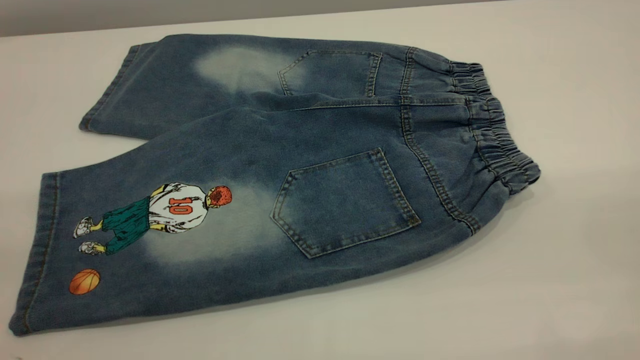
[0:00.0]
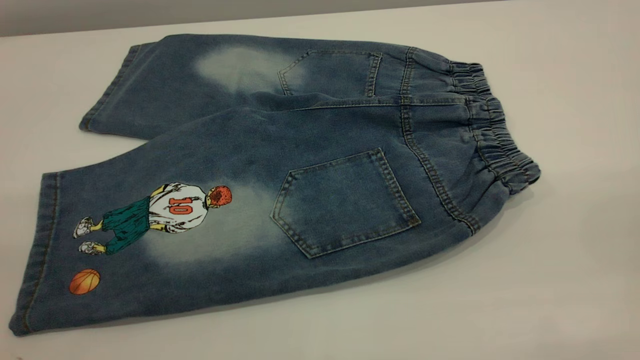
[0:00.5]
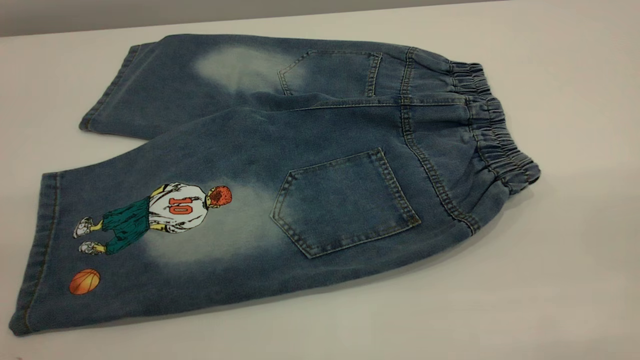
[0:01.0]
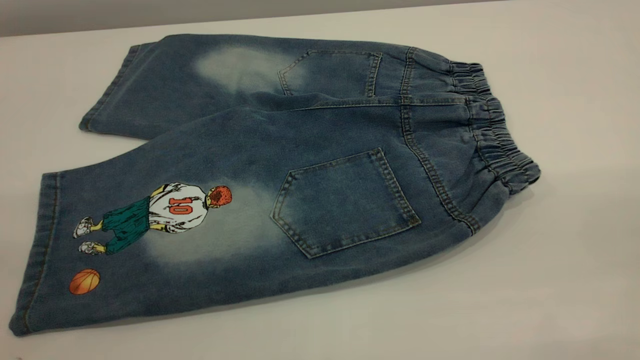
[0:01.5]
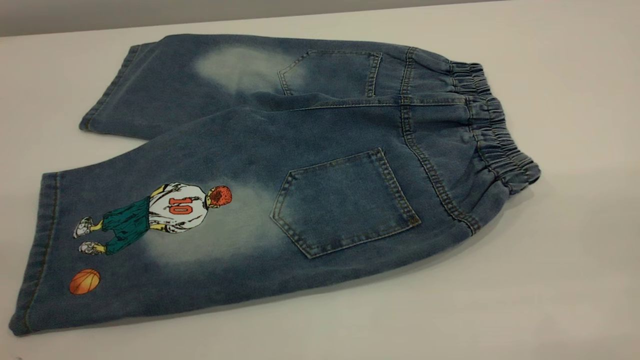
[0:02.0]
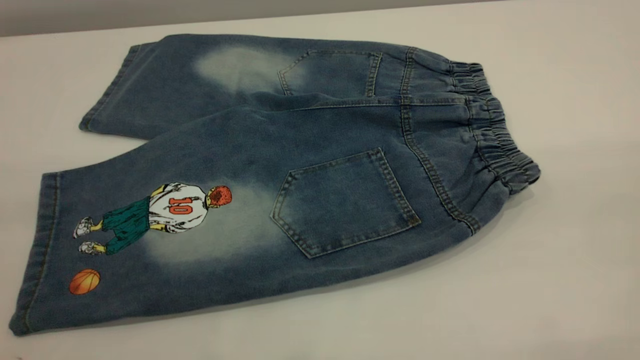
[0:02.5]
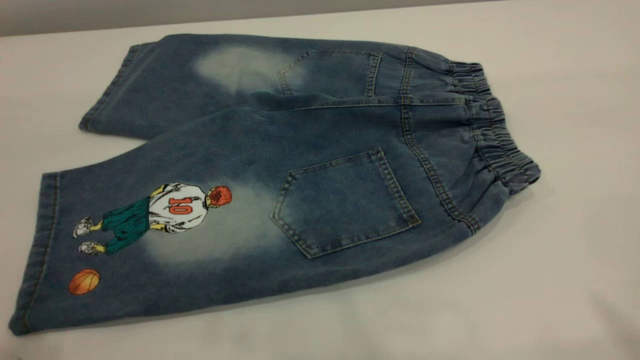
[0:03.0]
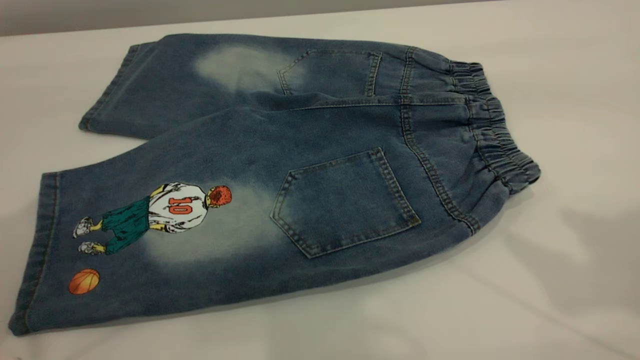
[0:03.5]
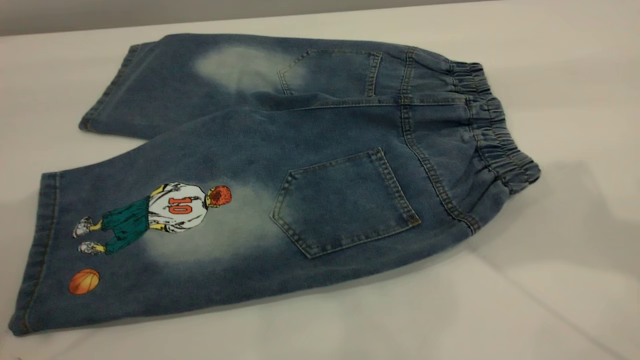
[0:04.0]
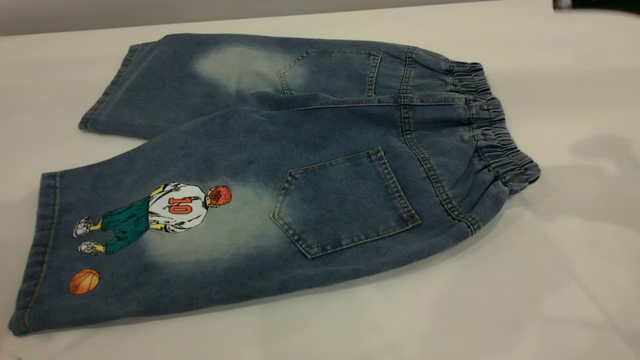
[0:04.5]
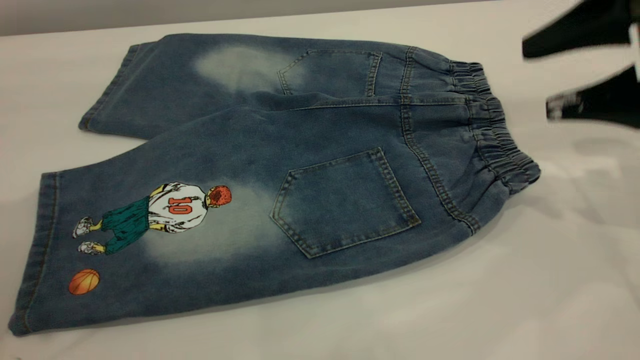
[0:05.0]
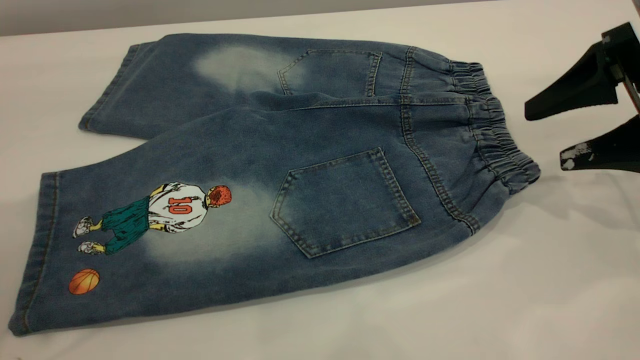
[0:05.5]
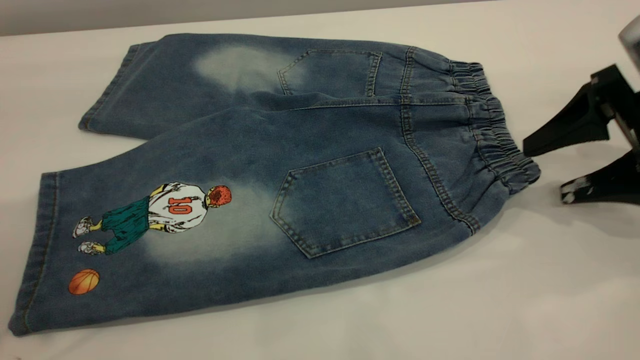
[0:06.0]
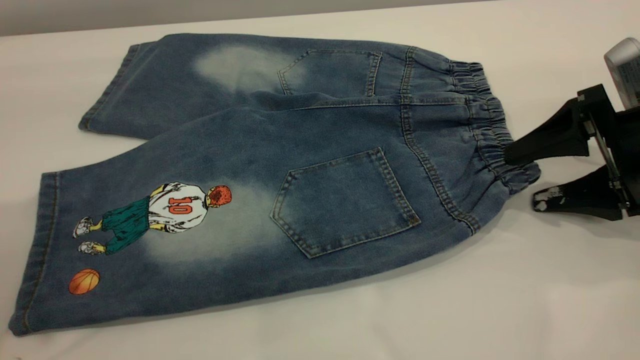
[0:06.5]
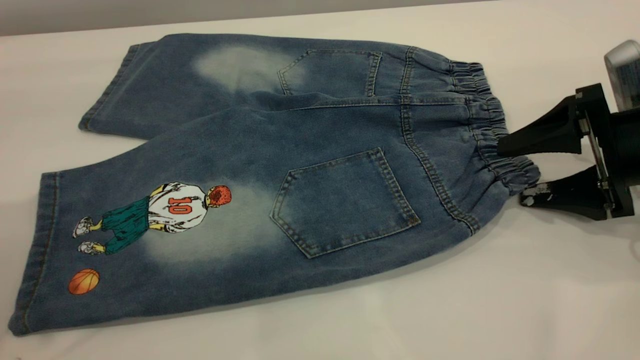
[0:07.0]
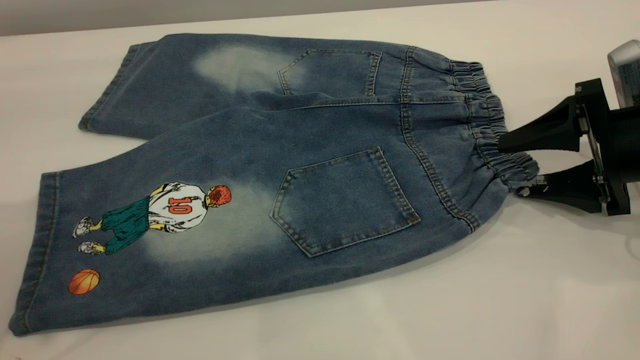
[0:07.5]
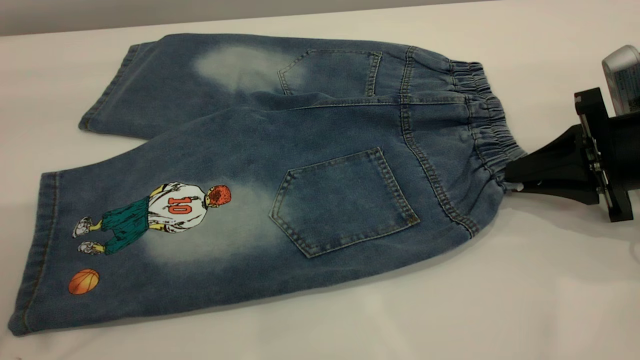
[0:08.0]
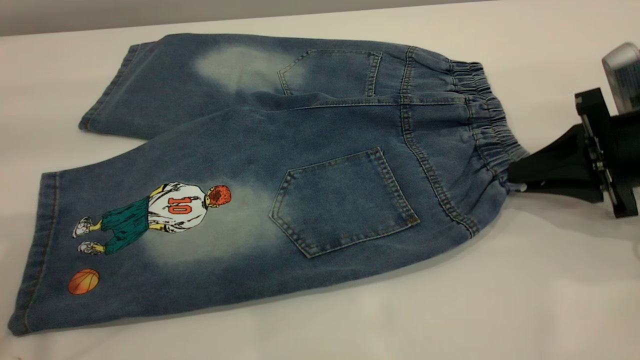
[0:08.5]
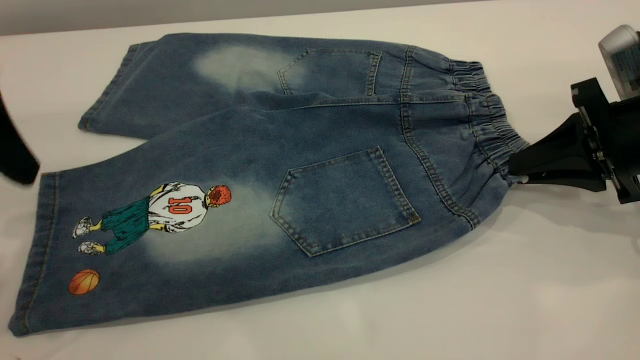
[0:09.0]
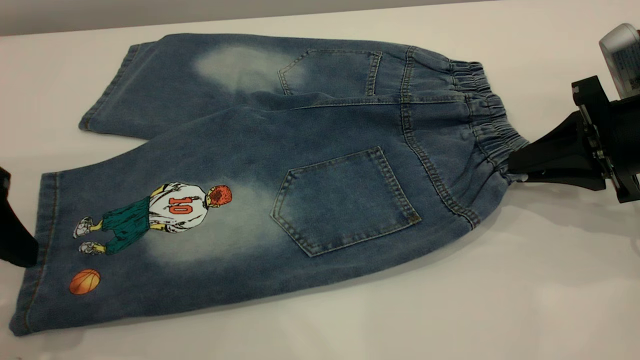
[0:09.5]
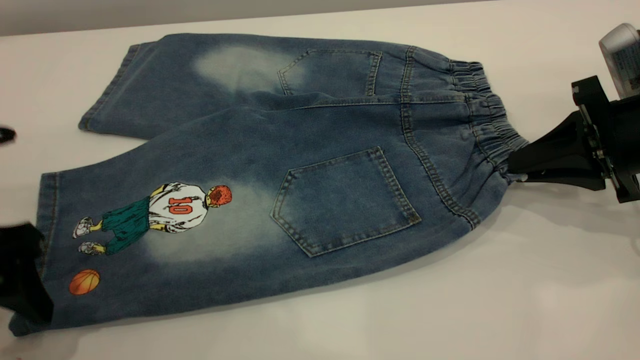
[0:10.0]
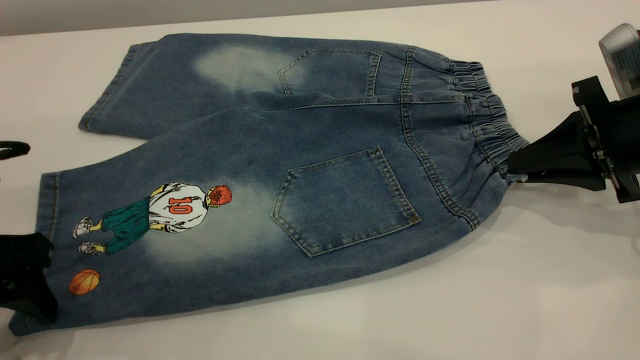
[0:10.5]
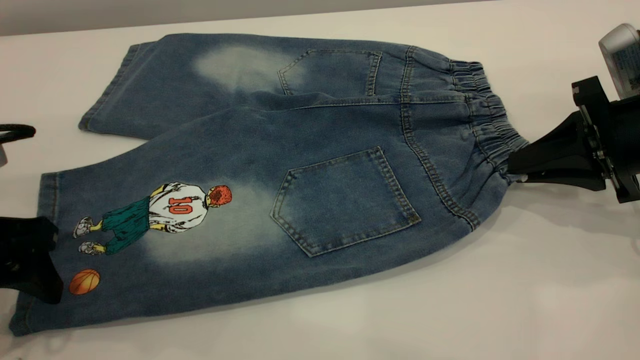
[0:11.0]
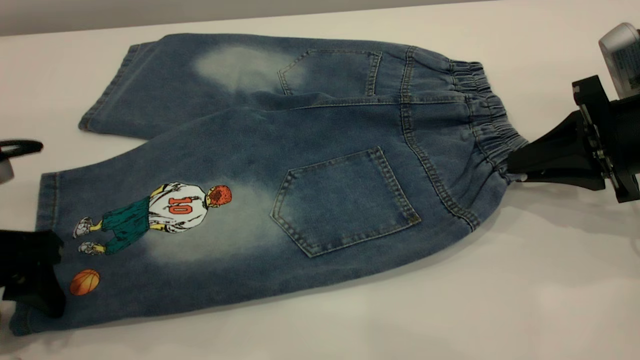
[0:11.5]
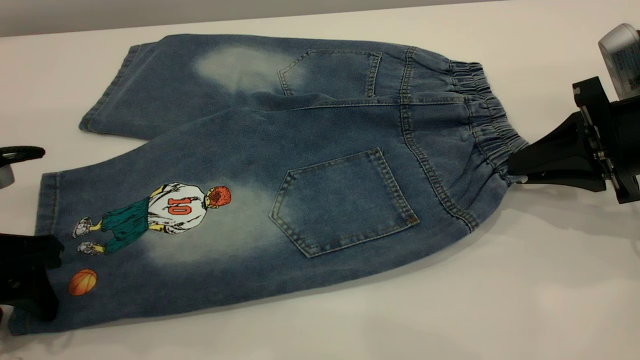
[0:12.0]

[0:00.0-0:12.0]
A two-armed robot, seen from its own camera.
0:00.0 to 0:02.0: Both grippers stay put.
0:04.0 to 0:06.0: The right gripper shifts about 20 cm downward.
0:06.0 to 0:08.0: The right gripper closes its fingers.
0:08.0 to 0:10.0: The left gripper shifts roughly 20 cm downward.
0:10.0 to 0:12.0: The grippers move only a little.

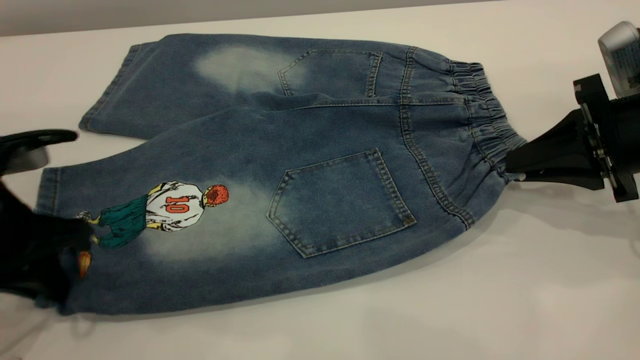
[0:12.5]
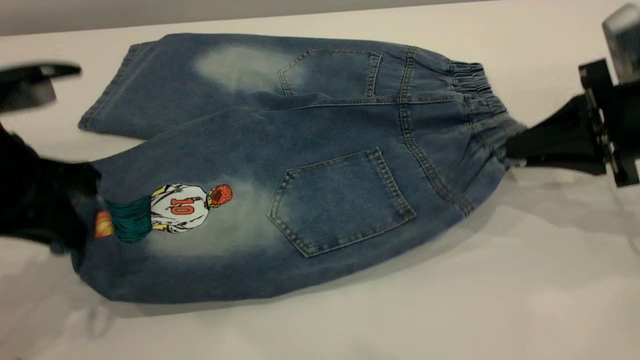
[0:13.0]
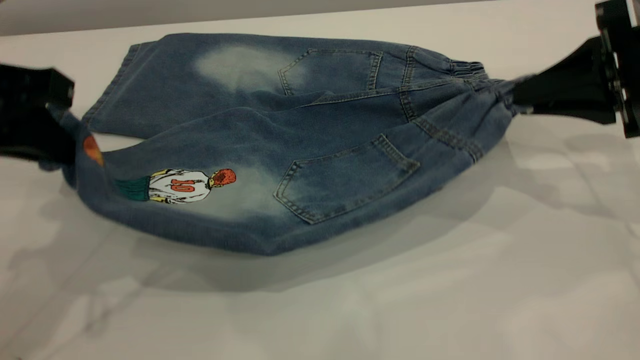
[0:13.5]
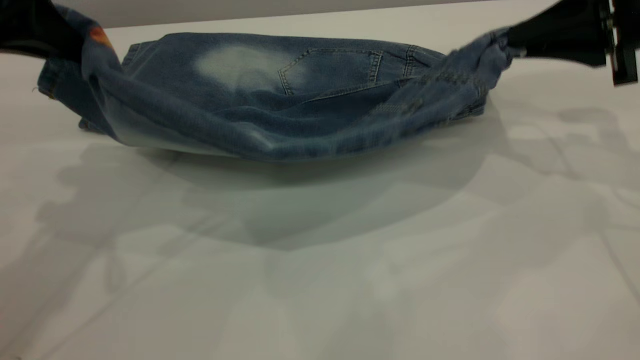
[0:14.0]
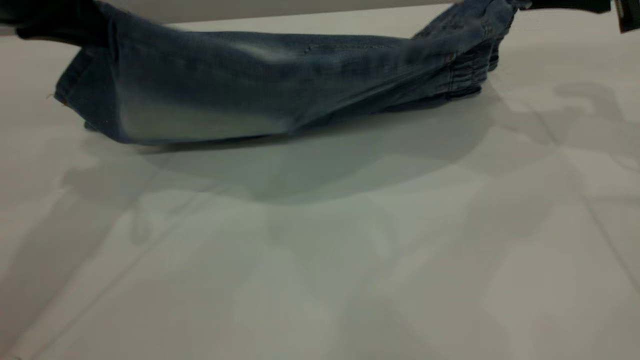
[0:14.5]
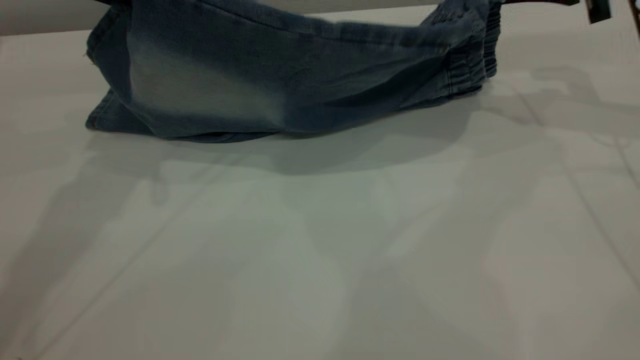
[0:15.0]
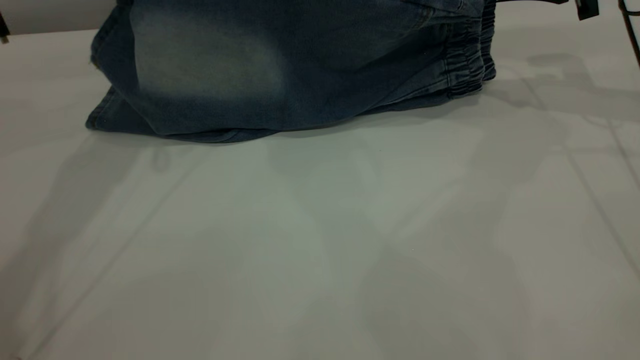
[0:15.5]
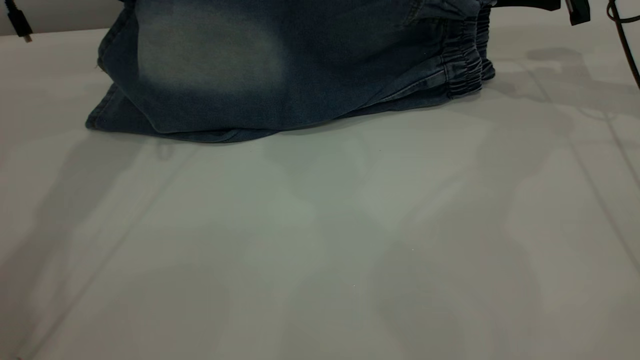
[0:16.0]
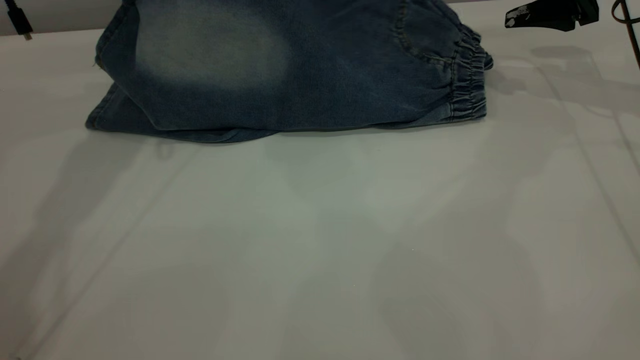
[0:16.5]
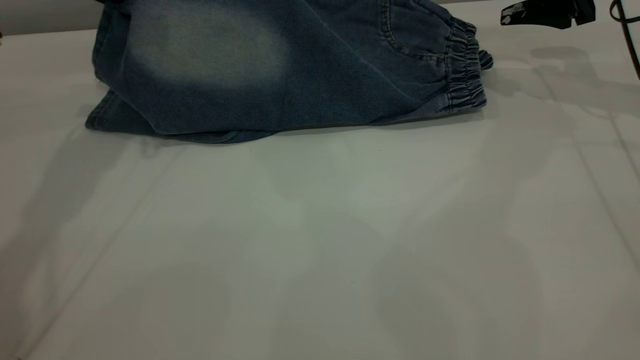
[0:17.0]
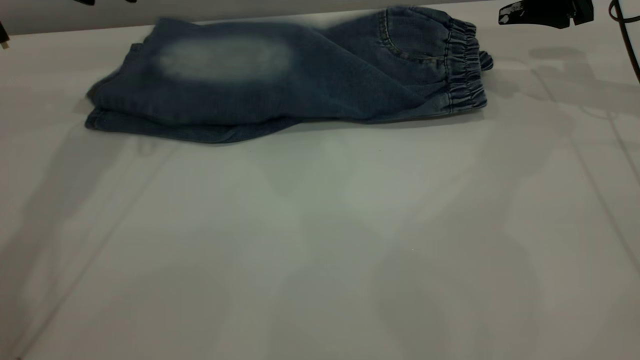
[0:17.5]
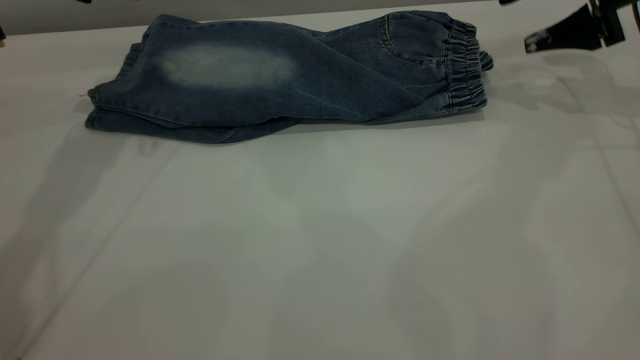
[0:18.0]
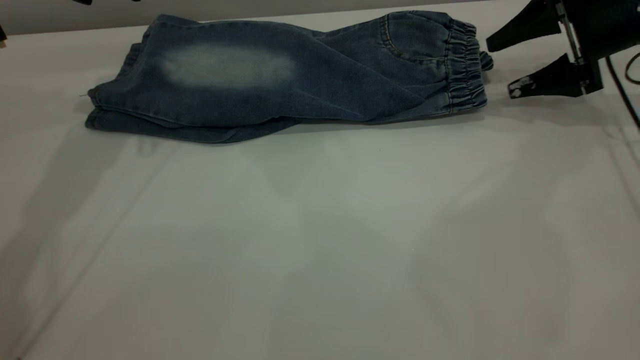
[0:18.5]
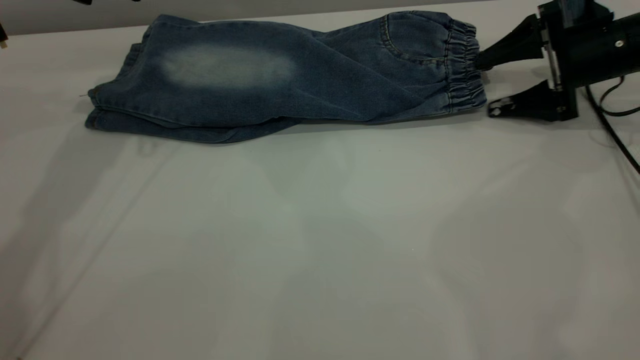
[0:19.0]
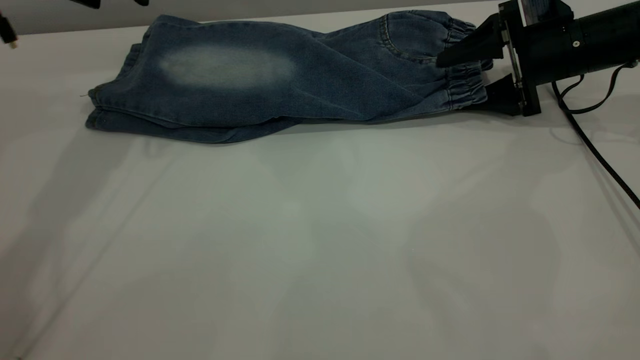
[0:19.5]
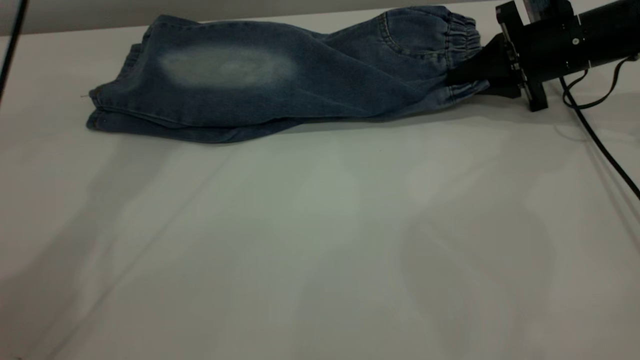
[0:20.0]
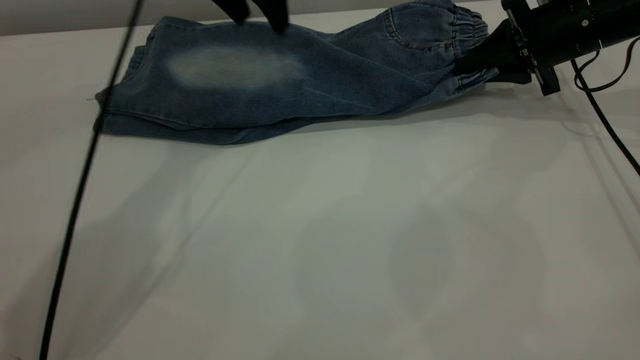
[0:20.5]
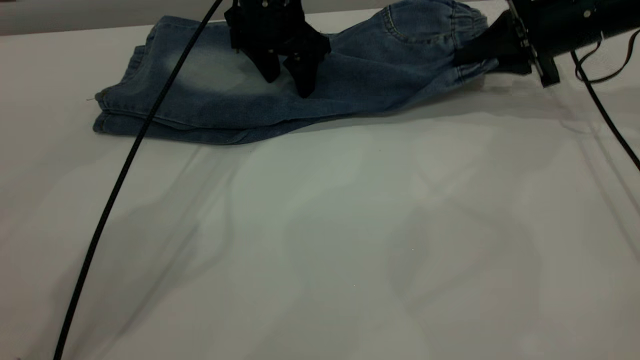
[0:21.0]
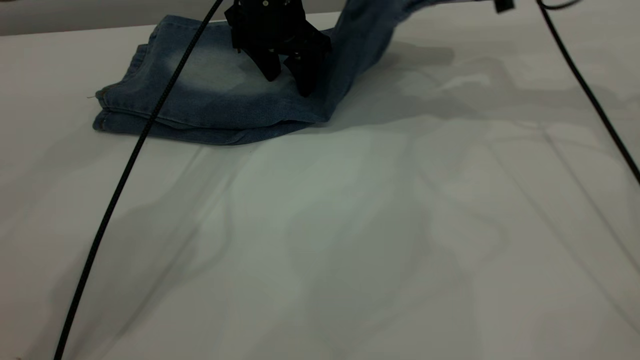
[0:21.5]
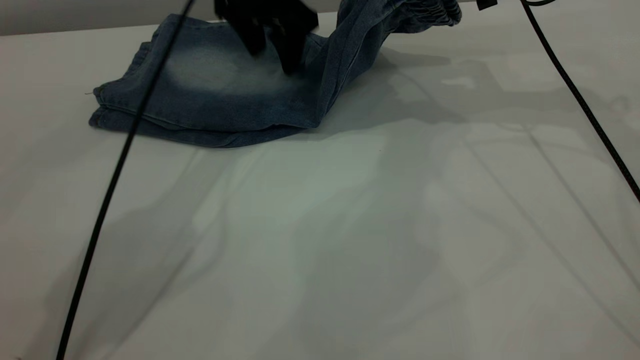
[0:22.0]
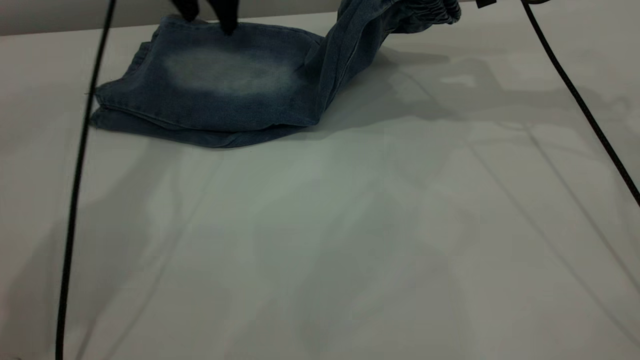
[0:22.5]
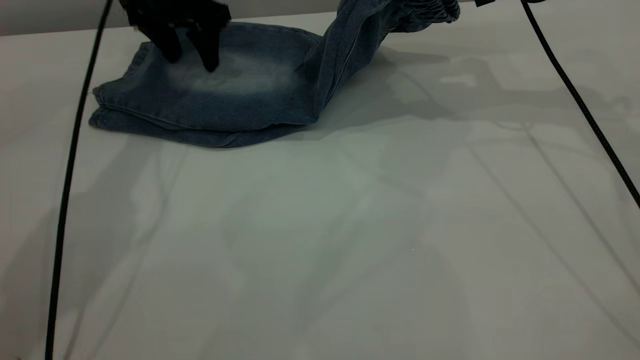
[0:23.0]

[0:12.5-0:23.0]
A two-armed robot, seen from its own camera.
Step, 0:12.5 to 0:17.5: Fold the bottom of the pants upward.
0:12.5 to 0:14.5: The two grippers go approximately 15 cm upward and forward.
0:14.5 to 0:16.5: Both grippers move forward, roughly 10 cm. The right gripper opens.
0:16.5 to 0:19.0: The left gripper opens up, while the right gripper travels downward by approximately 10 cm.
0:19.0 to 0:21.0: The left gripper travels to the right and downward by some 20 cm, while the right gripper shifts by roughly 5 cm, and closes its fingers.
0:21.0 to 0:23.0: The right gripper shifts approximately 10 cm upward and to the left; the left gripper moves to the left, some 10 cm.
